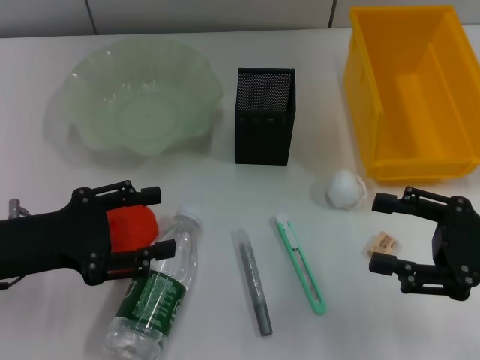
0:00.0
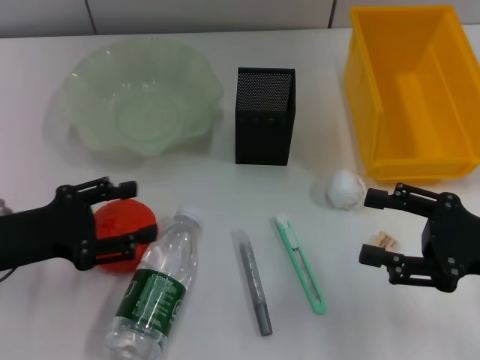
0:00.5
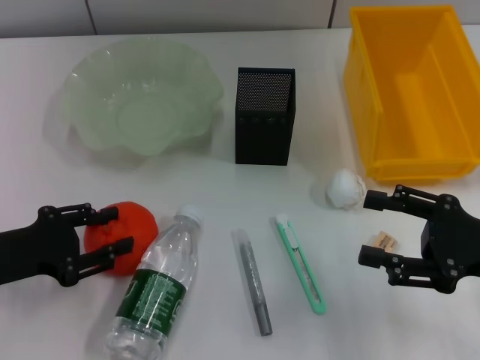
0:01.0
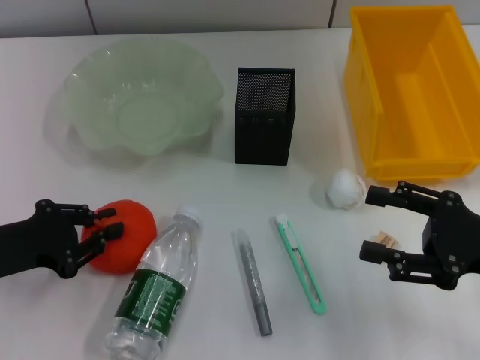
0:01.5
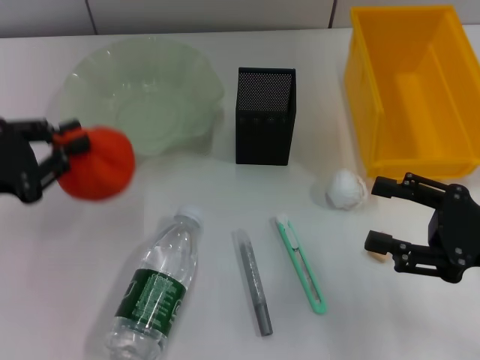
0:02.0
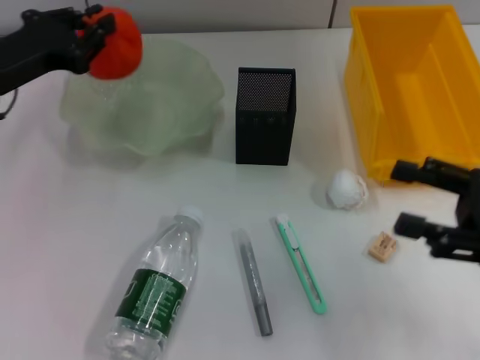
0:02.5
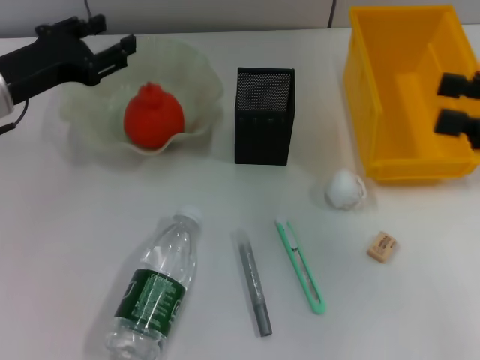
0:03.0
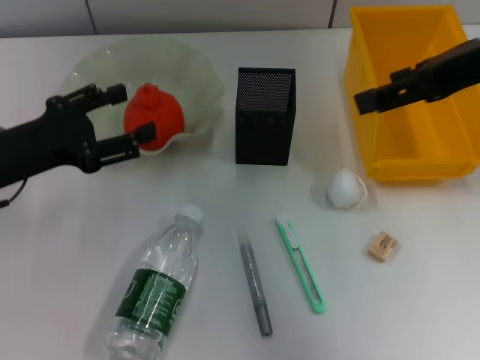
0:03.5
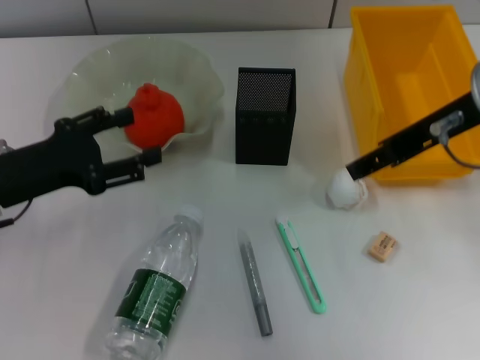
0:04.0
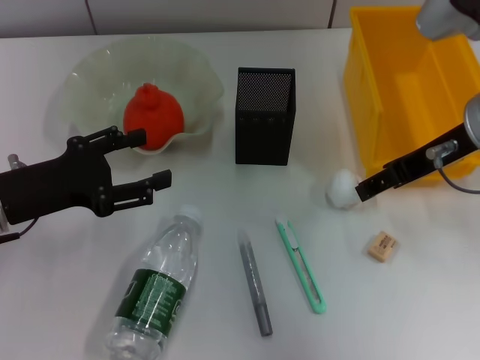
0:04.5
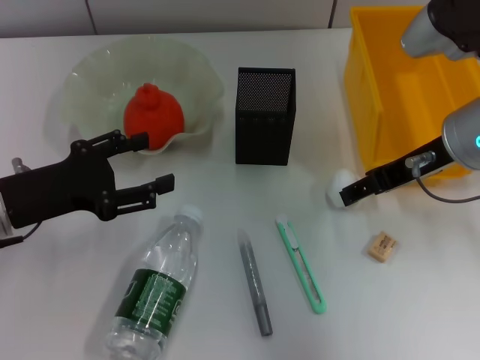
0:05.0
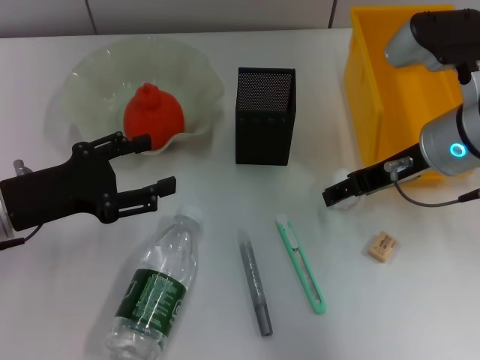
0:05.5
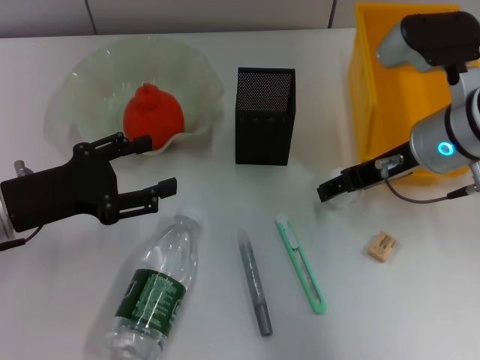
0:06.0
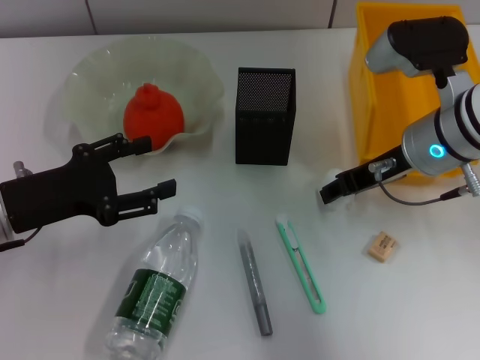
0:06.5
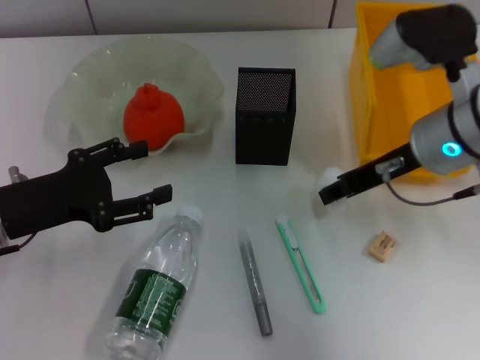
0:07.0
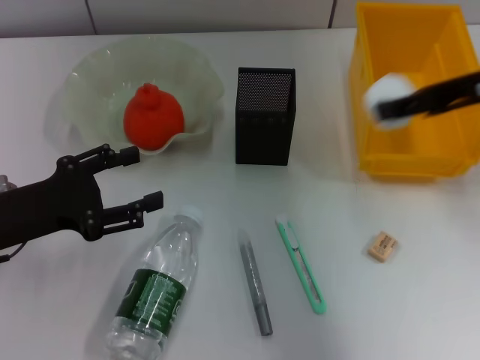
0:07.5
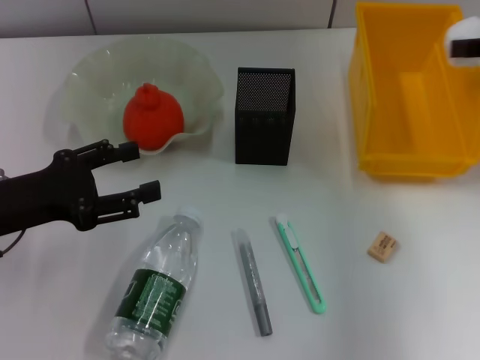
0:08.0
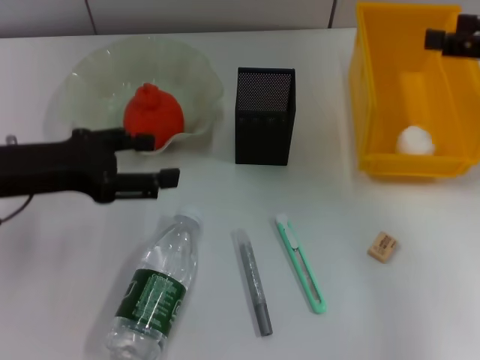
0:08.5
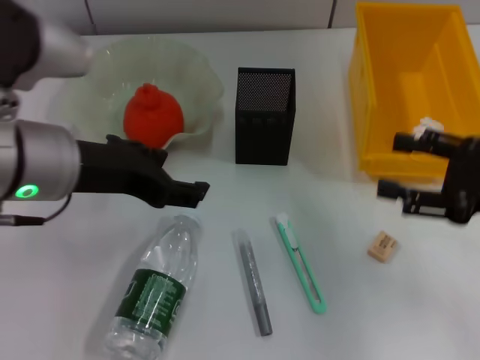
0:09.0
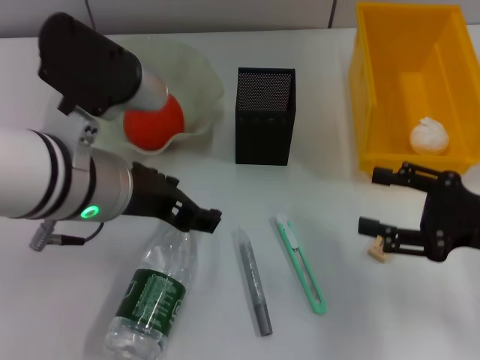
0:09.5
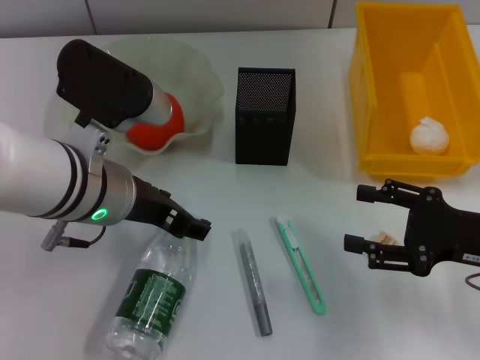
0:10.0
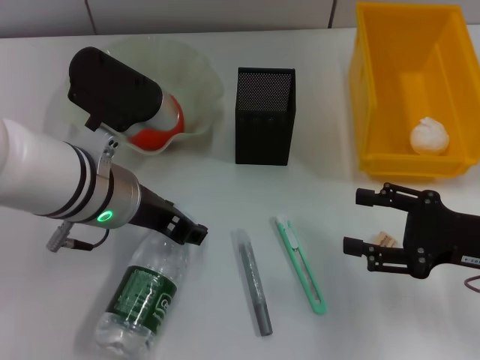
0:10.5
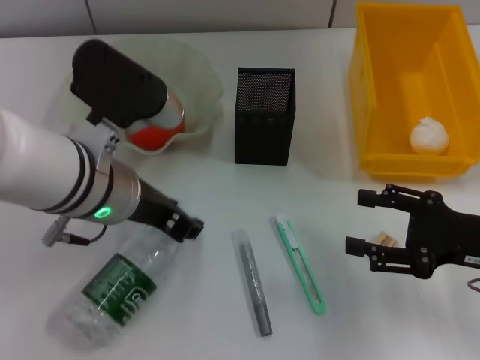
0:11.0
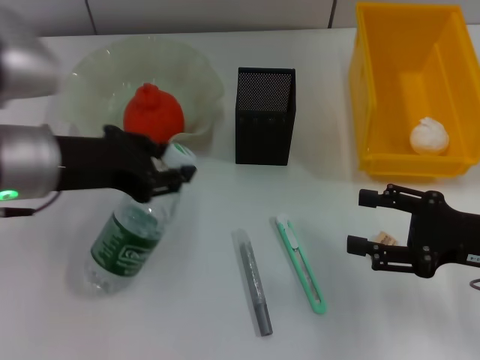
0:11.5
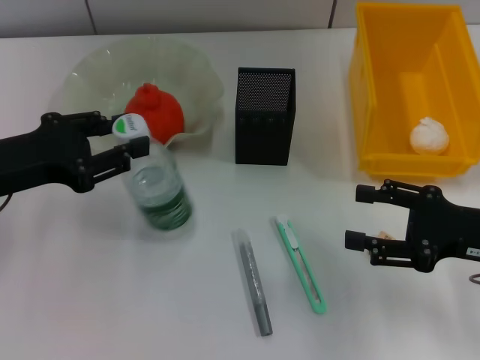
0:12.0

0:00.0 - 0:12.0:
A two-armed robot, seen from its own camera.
Step, 0:00.0 - 0:01.0: Grab the orange with the left hand.
Step, 0:01.5 - 0:03.0: Place the orange into the fruit bowl with the left hand.
Step, 0:03.5 - 0:06.0: Grab the paper ball with the right hand.
Step, 0:06.5 - 0:08.5: Place the paper ball into the trash can with the right hand.
Step, 0:09.0 - 0:10.5: Grab the water bottle with the left hand.
0:00.0 - 0:02.0: The left gripper moves some 5 cm, and closes.
0:02.0 - 0:04.0: The left gripper travels forward and back again, some 10 cm each way, and opens up; the right gripper goes roughly 20 cm upward, to the left and forward.
0:04.0 - 0:06.0: The right gripper heads downward, covering approximately 10 cm.
0:06.0 - 0:08.0: The right gripper is displaced to the right and upward by roughly 15 cm.
0:08.0 - 0:10.0: The left gripper travels to the right by roughly 15 cm. Meanwhile the right gripper is displaced downward and backward by about 20 cm.
0:10.0 - 0:12.0: The left gripper moves to the left, approximately 15 cm, and closes its fingers.

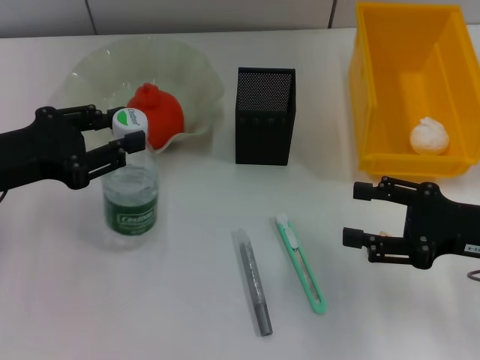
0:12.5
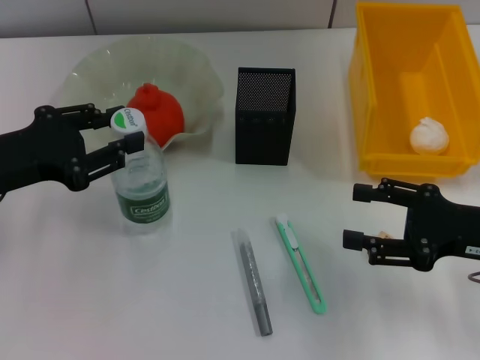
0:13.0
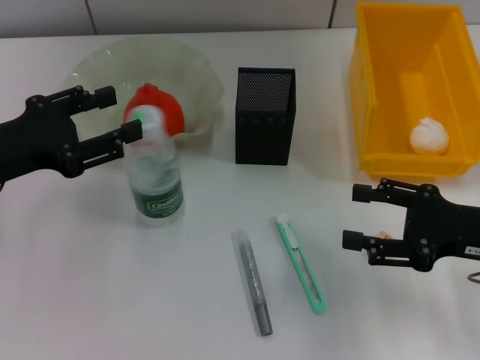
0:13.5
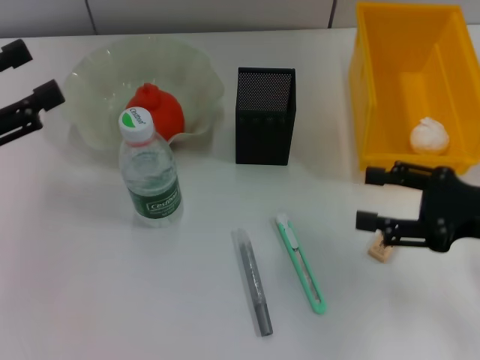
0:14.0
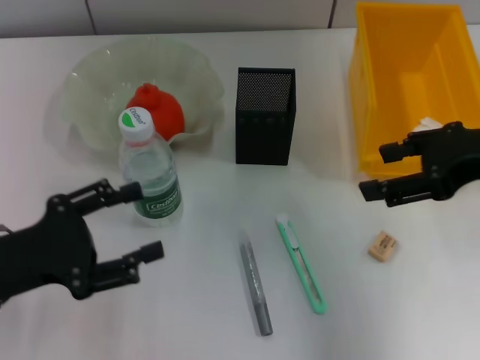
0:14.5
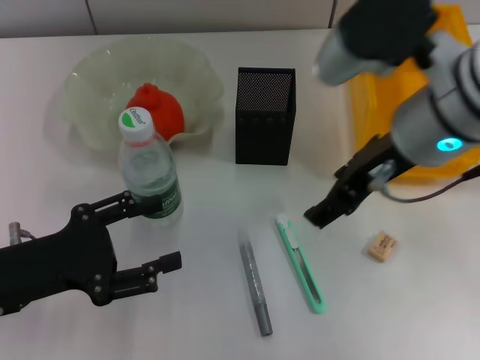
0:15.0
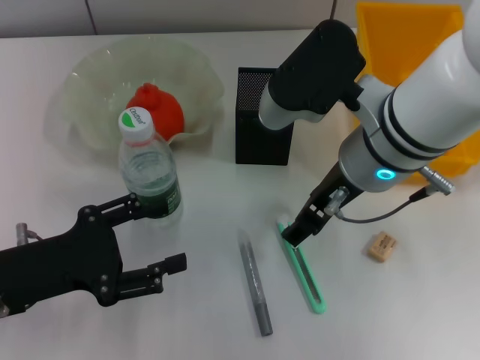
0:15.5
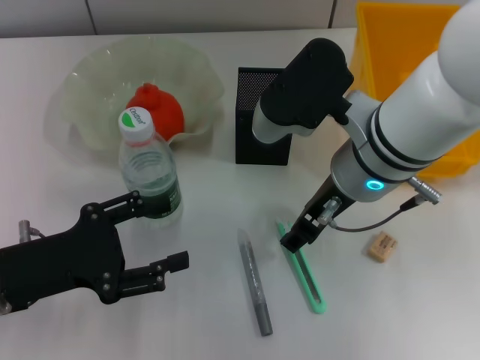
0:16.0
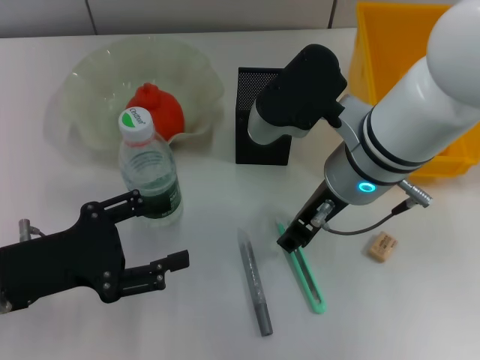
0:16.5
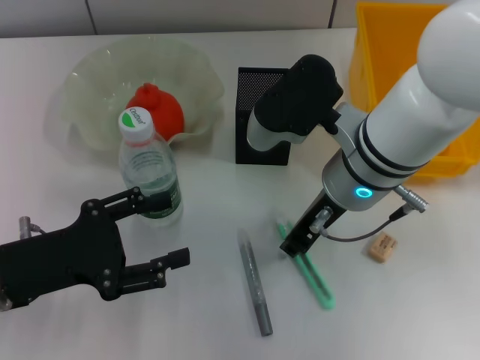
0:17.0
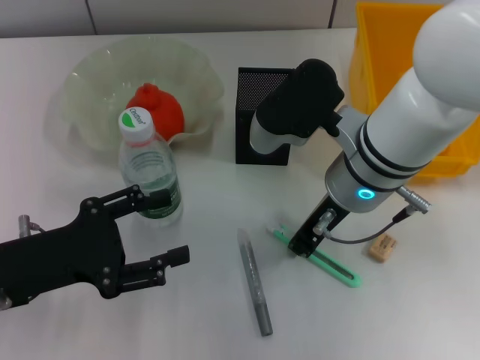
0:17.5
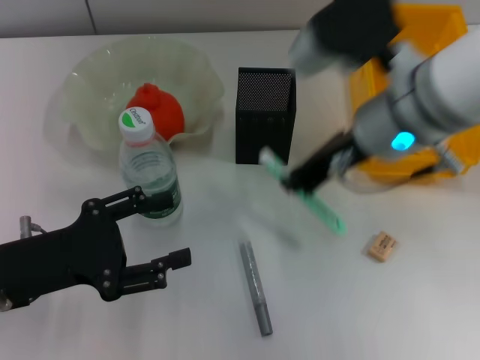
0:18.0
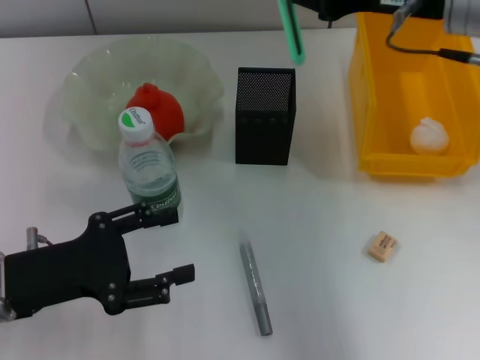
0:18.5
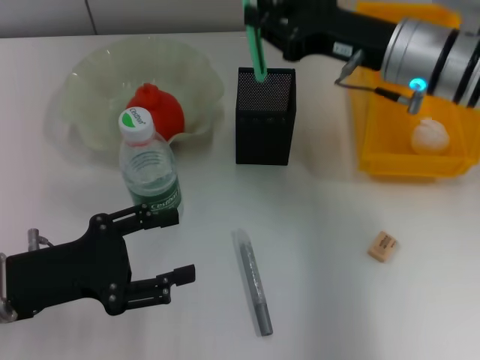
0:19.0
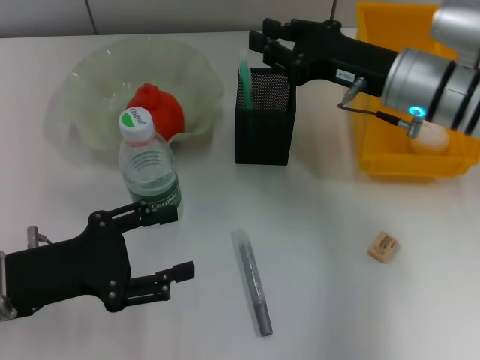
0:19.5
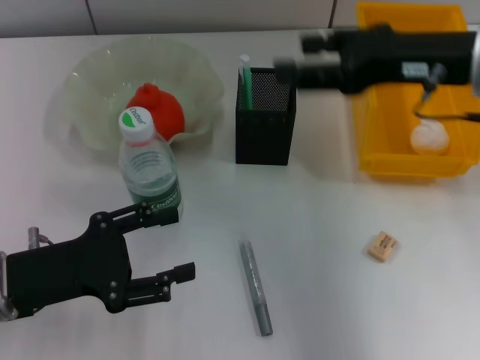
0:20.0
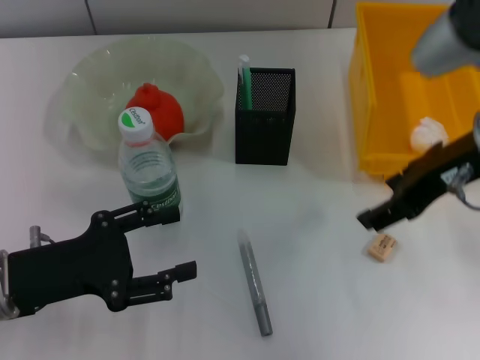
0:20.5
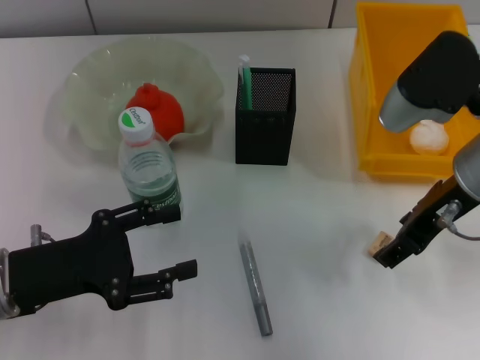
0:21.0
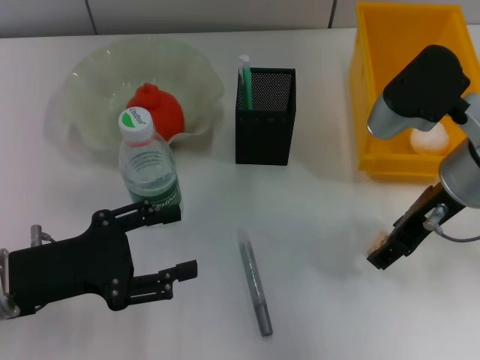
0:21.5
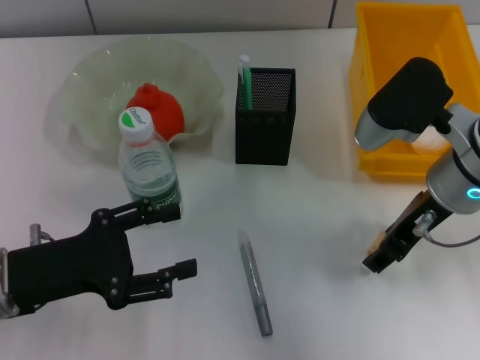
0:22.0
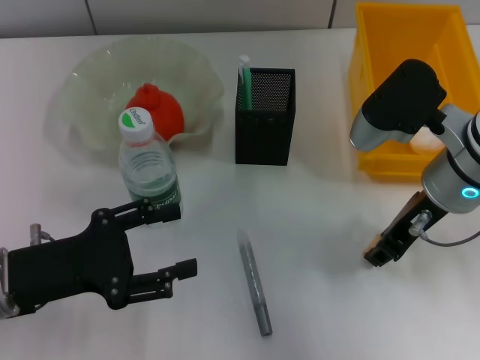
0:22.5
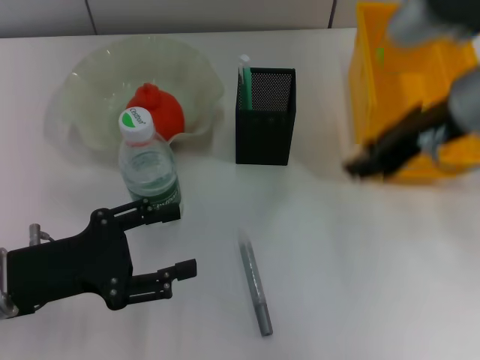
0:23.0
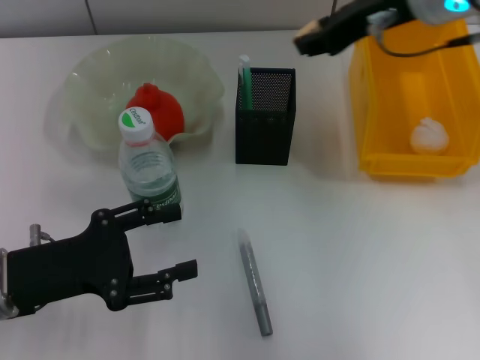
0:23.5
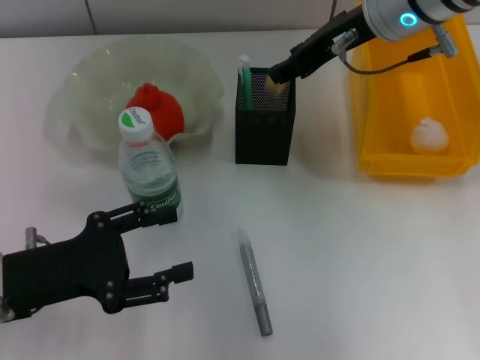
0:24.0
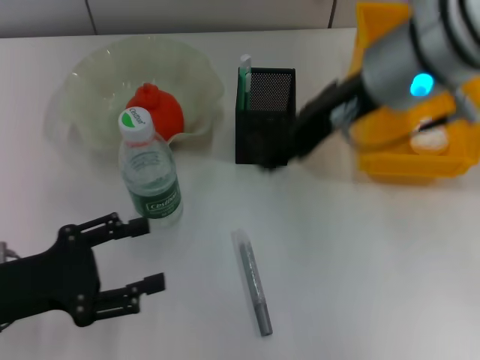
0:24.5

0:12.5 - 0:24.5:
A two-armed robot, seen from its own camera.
Step, 0:14.0 - 0:17.5: Grab the blue utility knife with the right hand.
Step, 0:18.0 - 0:19.5: Place the blue utility knife into the pen holder with the right hand.
Step, 0:20.0 - 0:22.0: Grab the eraser with the right hand.
Step, 0:22.5 - 0:24.0: Put the eraser into the pen holder with the right hand.
0:12.5 - 0:14.5: The left gripper shifts some 10 cm backward and downward, and opens its fingers, while the right gripper is displaced upward by about 15 cm.
0:14.5 - 0:16.5: The right gripper heads to the left, covering roughly 15 cm.
0:16.5 - 0:18.5: The right gripper shifts about 15 cm to the right and upward, and closes up.
0:18.5 - 0:20.5: The right gripper shifts approximately 5 cm backward, moves some 10 cm downward and comes back, and opens.
0:20.5 - 0:22.5: The right gripper is displaced downward by about 10 cm, and closes.
0:22.5 - 0:24.5: The right gripper moves upward and to the left, approximately 10 cm, and opens.

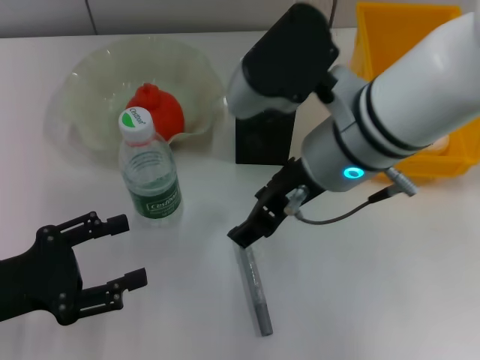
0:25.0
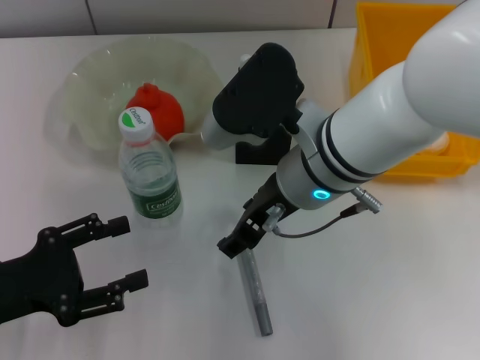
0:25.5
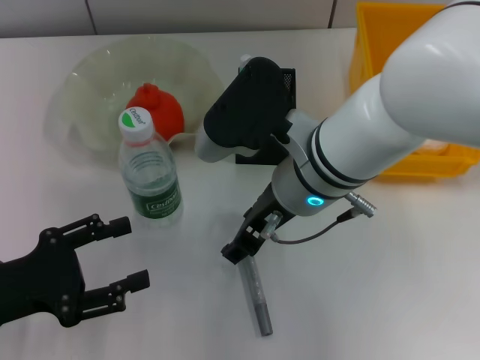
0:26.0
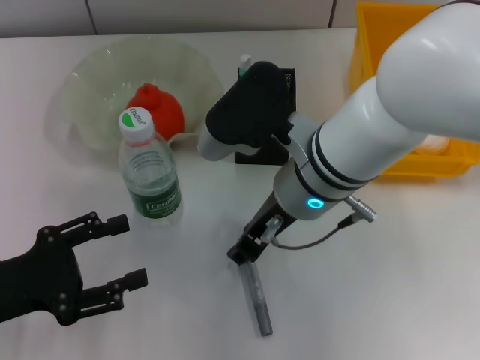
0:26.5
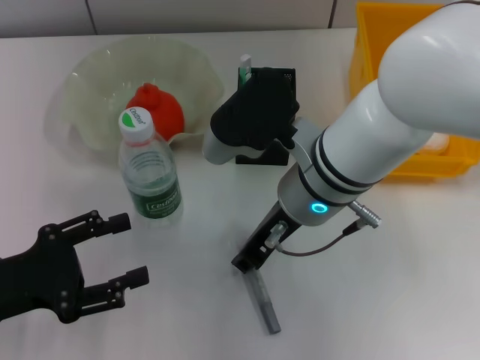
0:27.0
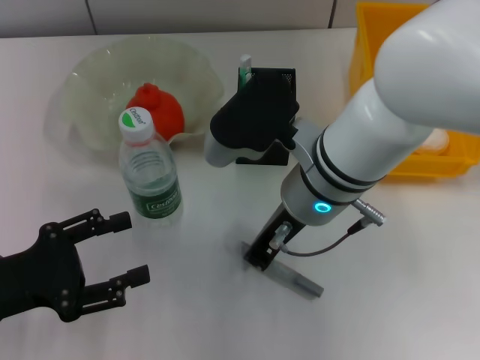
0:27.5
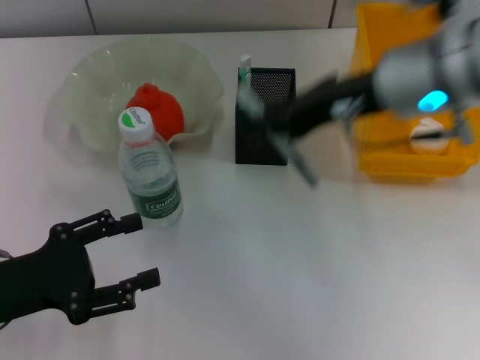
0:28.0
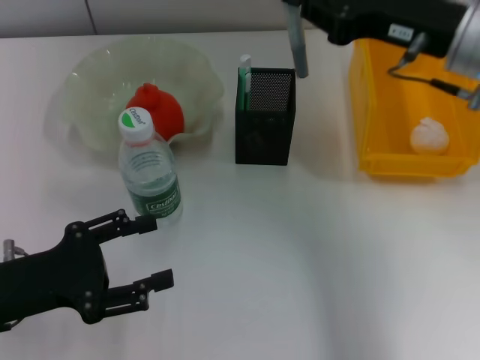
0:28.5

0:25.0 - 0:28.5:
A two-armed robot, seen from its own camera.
Step, 0:25.0 - 0:27.0: Grab the gray glue with the right hand.
0:25.0 - 0:27.0: The right gripper travels downward by some 5 cm, and closes its fingers.
0:27.0 - 0:28.5: The right gripper is displaced to the right by about 15 cm, and closes up.
